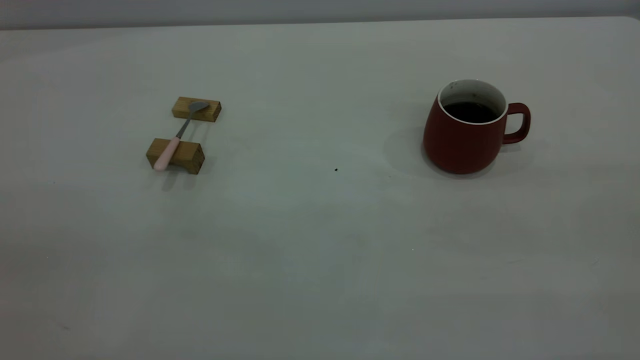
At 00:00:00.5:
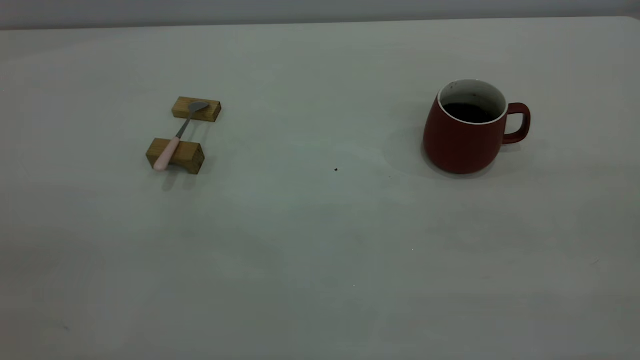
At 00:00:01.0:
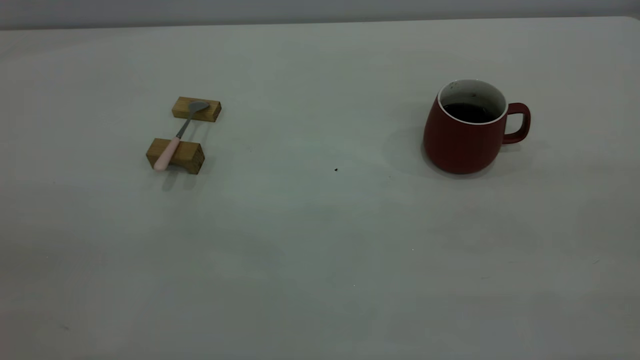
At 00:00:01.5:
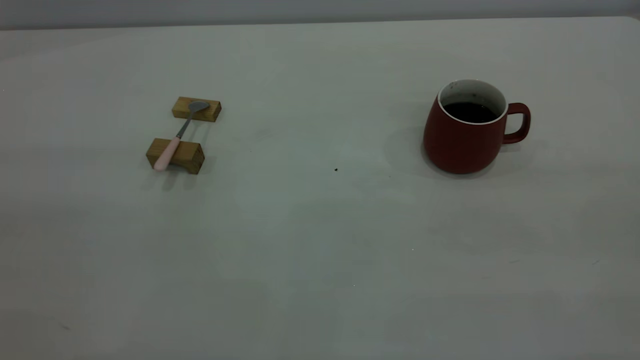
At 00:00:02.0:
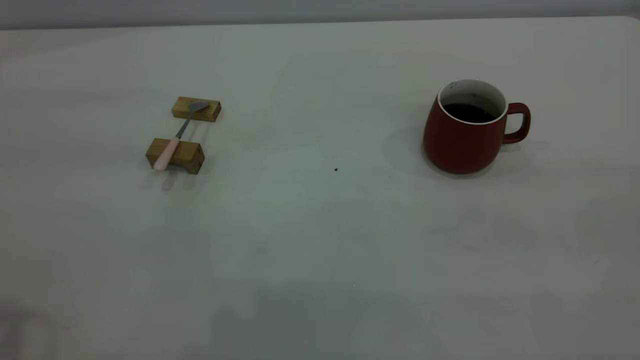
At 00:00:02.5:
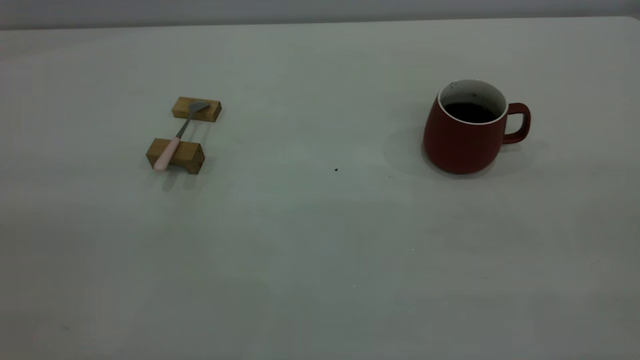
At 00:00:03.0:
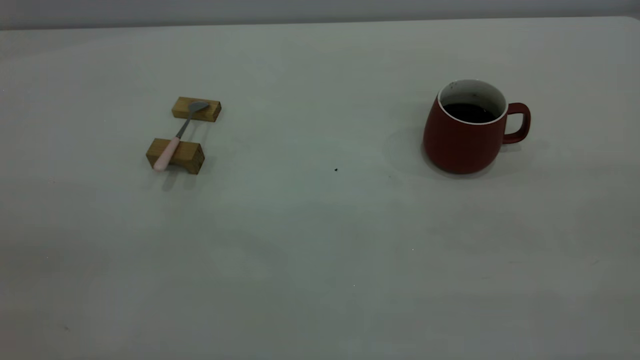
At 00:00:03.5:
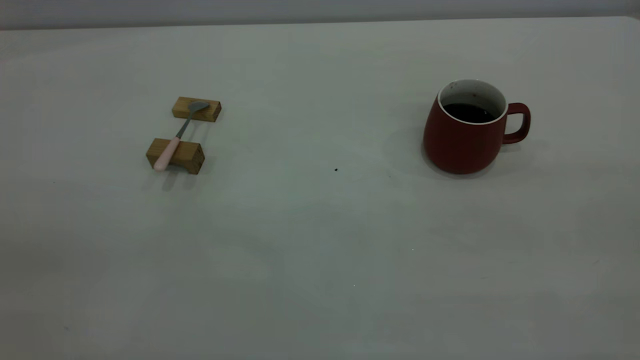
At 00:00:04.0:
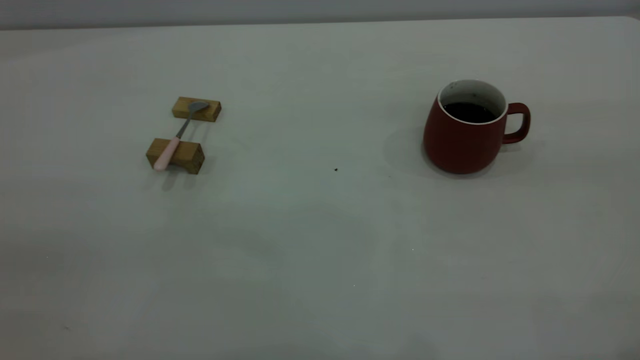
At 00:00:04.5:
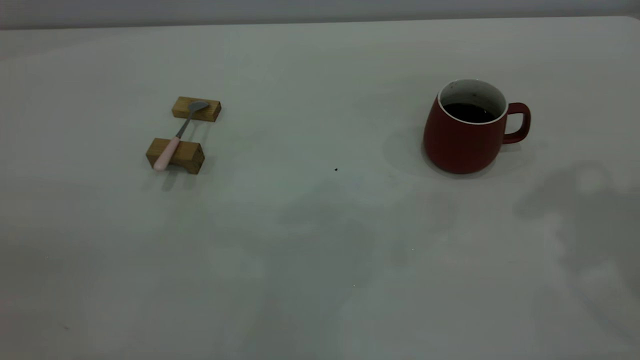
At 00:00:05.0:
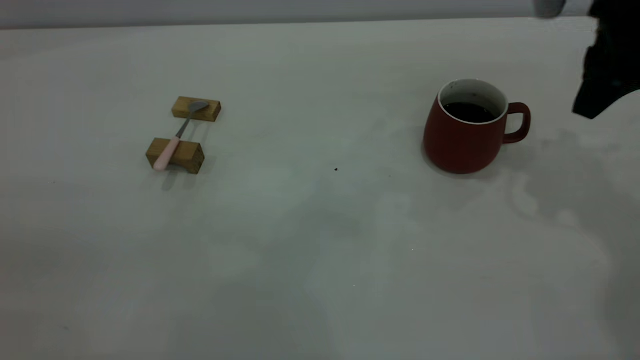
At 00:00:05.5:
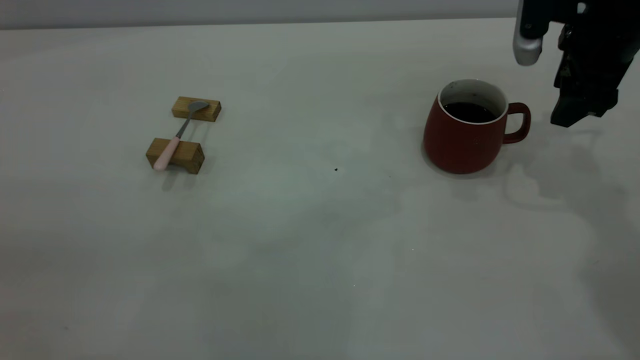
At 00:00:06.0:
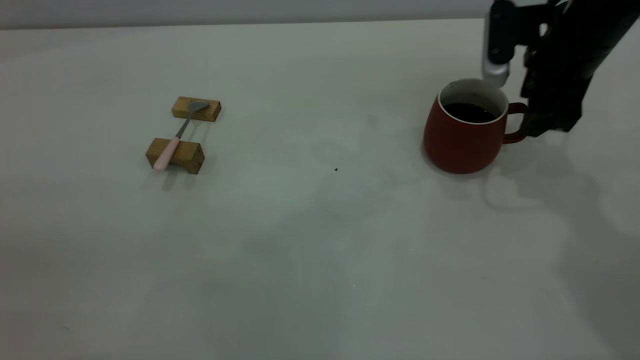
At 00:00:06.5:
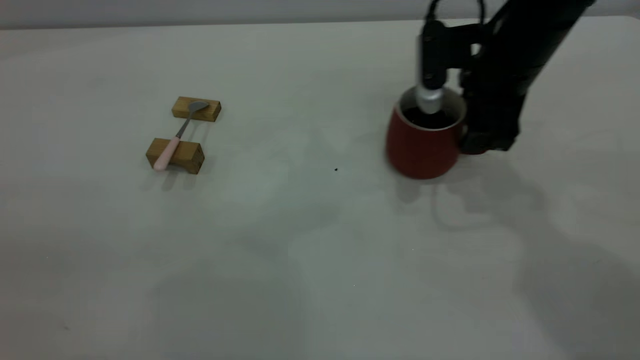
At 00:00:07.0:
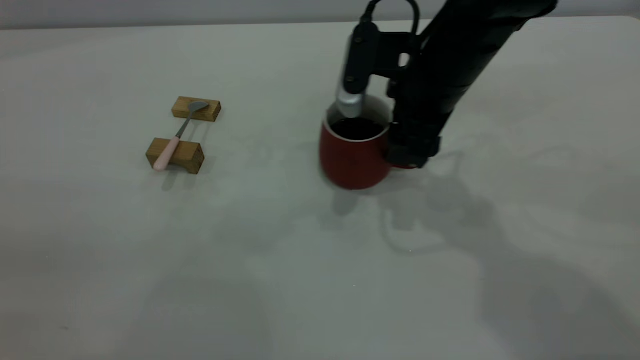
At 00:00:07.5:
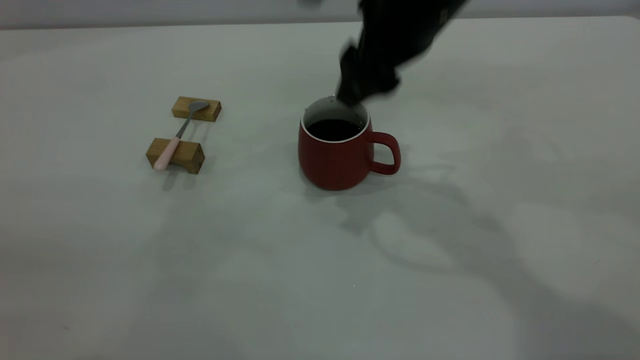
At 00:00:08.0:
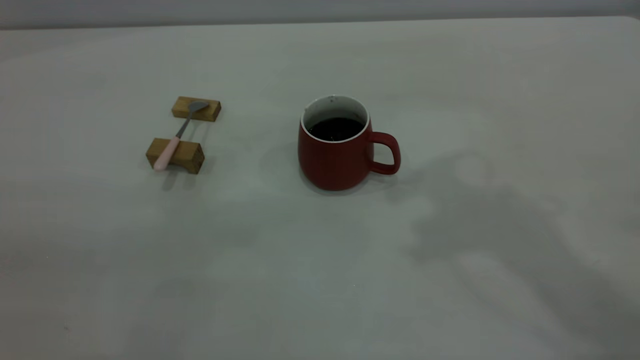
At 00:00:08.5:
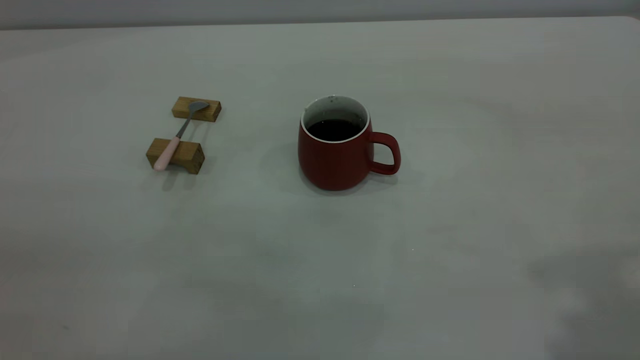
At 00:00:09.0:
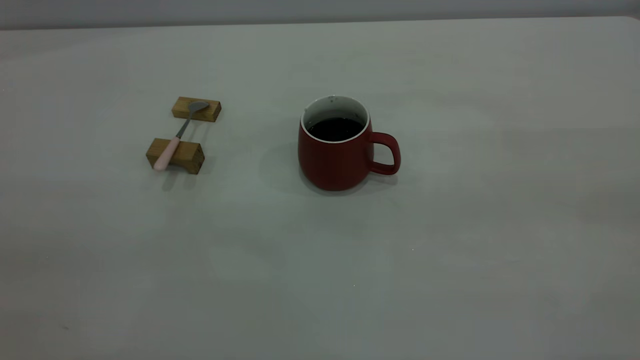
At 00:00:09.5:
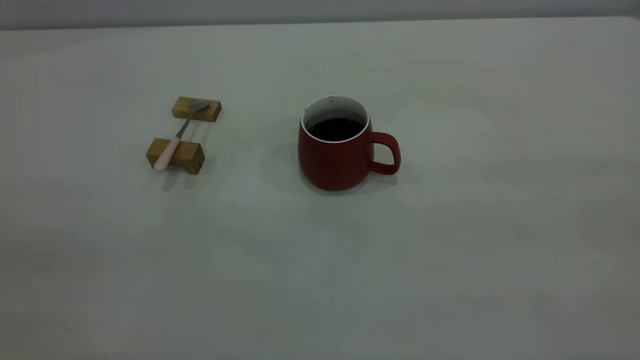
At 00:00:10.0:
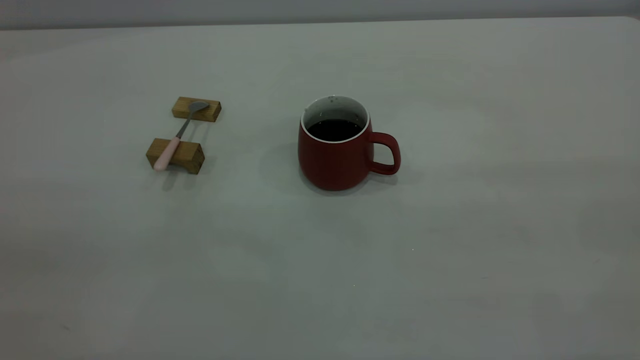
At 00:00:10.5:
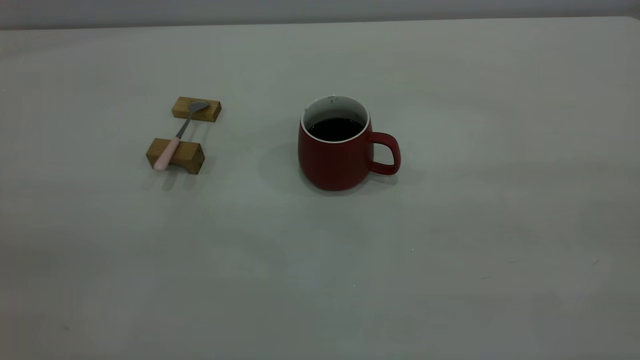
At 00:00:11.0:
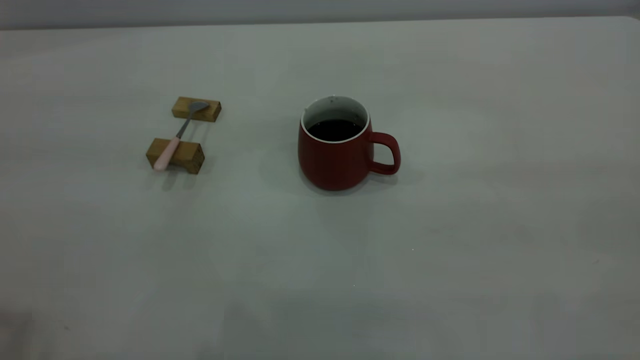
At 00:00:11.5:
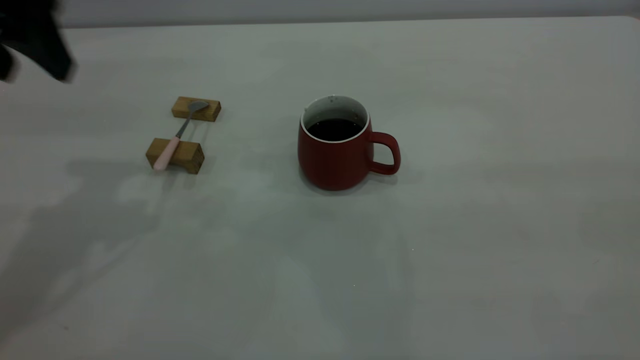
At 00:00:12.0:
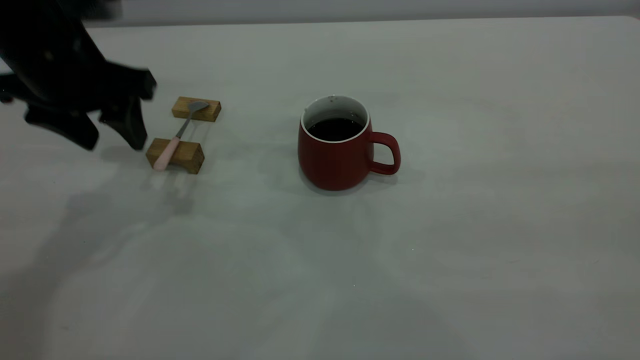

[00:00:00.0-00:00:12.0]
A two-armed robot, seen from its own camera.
Step, 00:00:00.0 to 00:00:07.5: Move the cup with coffee to the center of view.
00:00:04.0 to 00:00:06.0: The right gripper heads forward and downward, covering approximately 40 cm.
00:00:06.0 to 00:00:08.0: The right gripper heads upward and backward, covering some 25 cm.
00:00:10.0 to 00:00:12.0: The left gripper heads forward and downward, covering some 40 cm, and opens its fingers.

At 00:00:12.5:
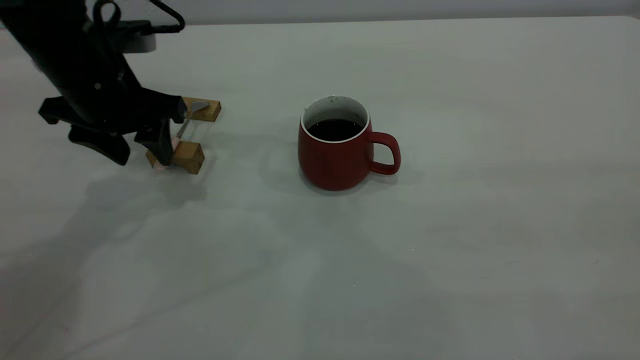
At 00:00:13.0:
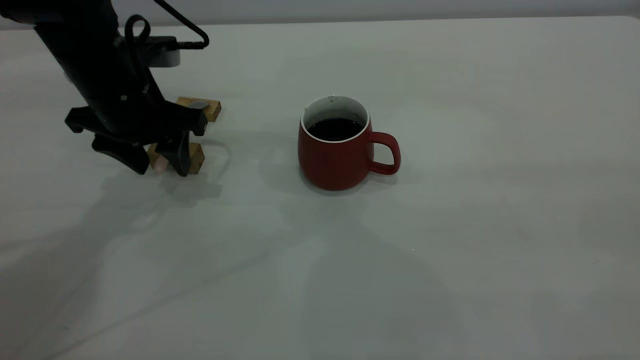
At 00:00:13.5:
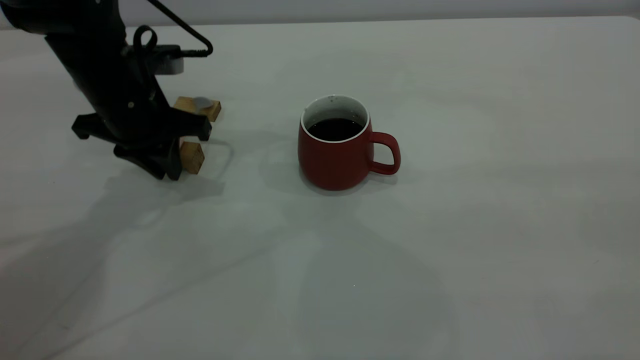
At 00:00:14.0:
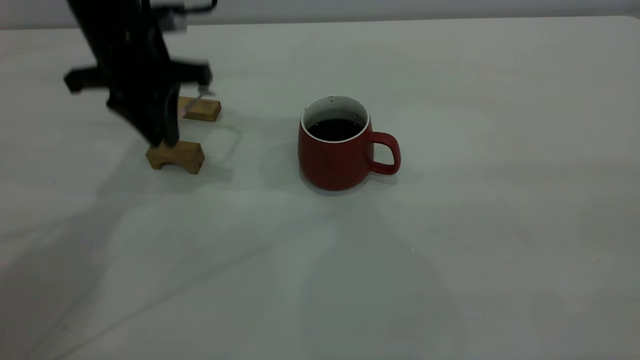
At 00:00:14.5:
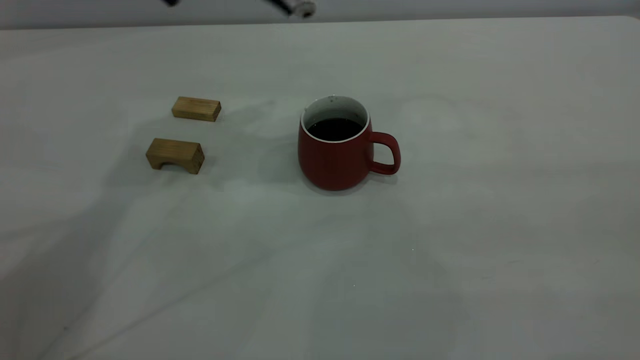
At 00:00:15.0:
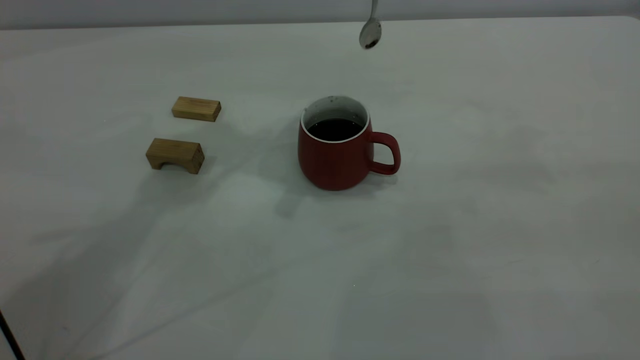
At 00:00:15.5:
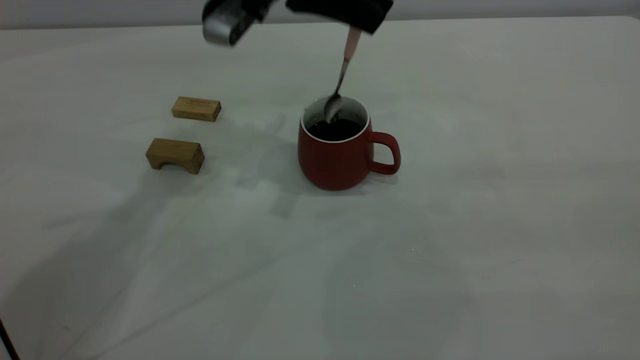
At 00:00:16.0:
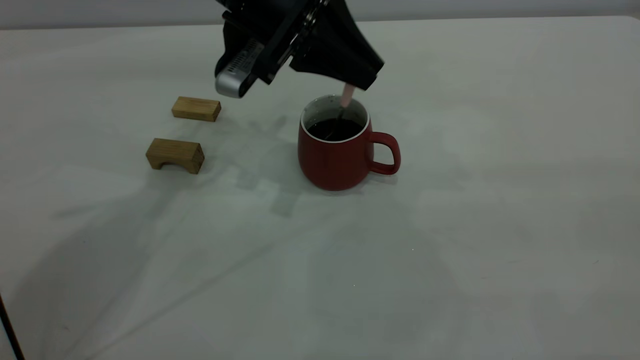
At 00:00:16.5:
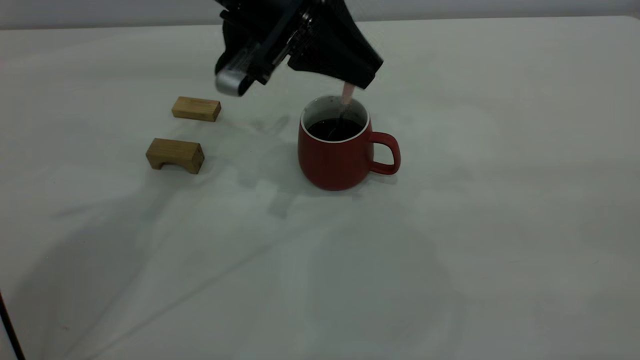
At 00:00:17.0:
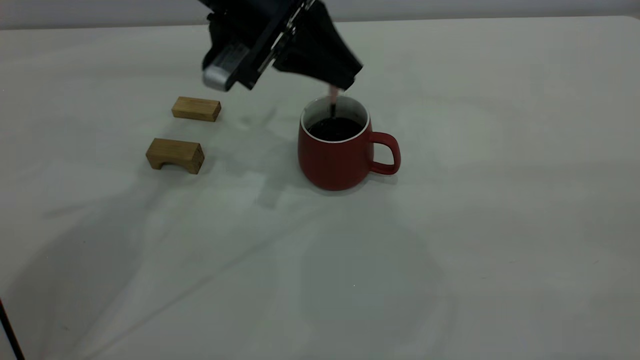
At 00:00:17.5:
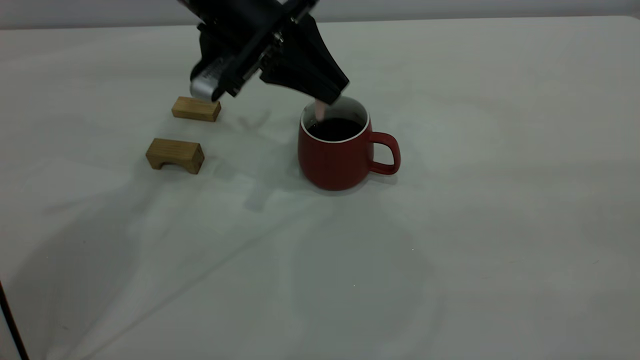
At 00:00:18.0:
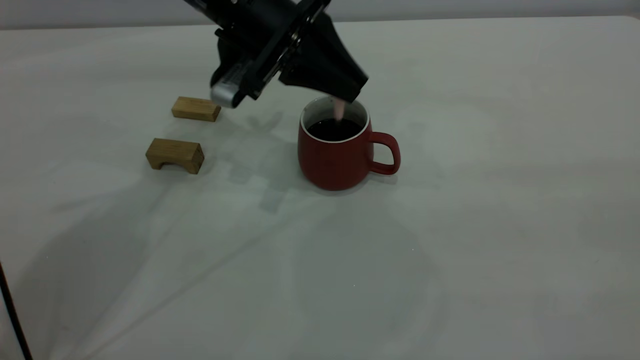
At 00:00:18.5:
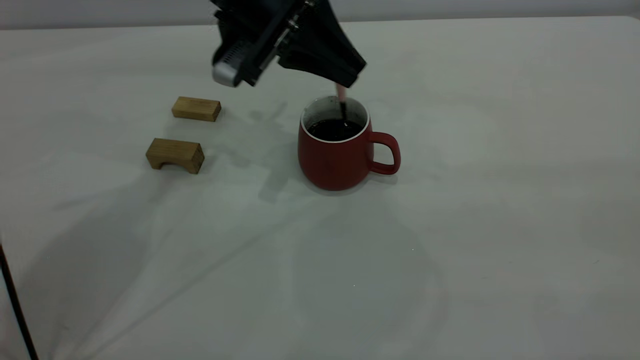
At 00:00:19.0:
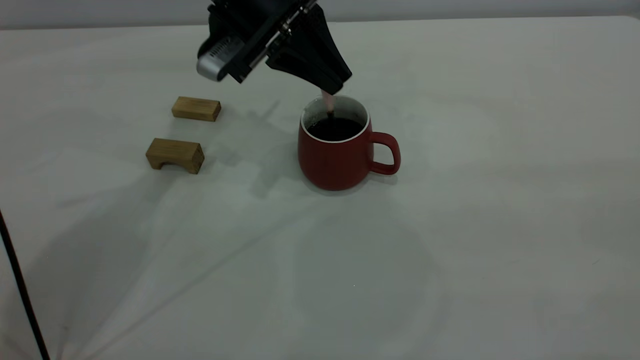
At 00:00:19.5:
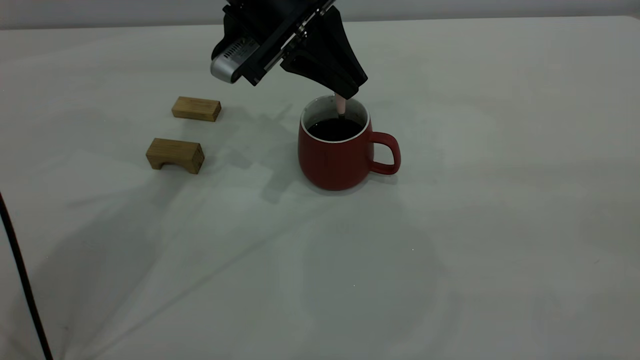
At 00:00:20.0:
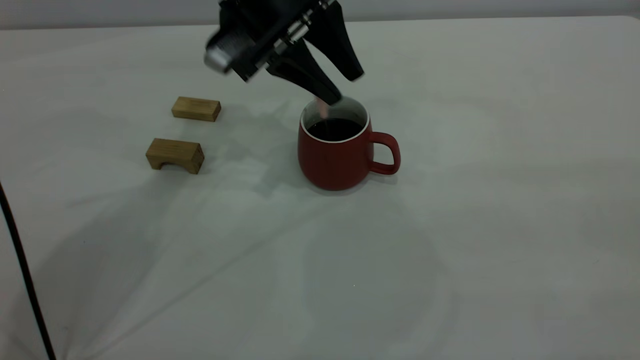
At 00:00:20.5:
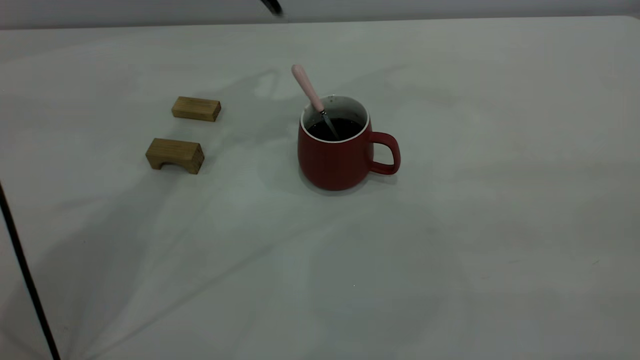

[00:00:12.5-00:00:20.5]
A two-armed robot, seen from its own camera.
Step, 00:00:14.5 to 00:00:20.0: Stir the coffee in the cup.
00:00:12.5 to 00:00:14.5: The left gripper heads upward and to the right, covering approximately 15 cm, and closes its fingers.
00:00:14.5 to 00:00:16.5: The left gripper shifts approximately 10 cm downward.
00:00:16.5 to 00:00:18.5: There are only small adjustments of the grippers.
00:00:18.5 to 00:00:20.5: The left gripper is displaced upward by some 10 cm, and opens up.
